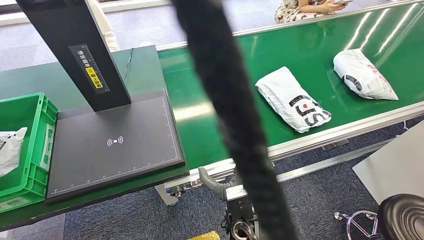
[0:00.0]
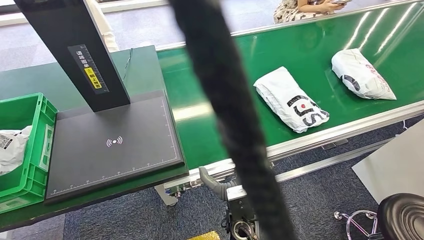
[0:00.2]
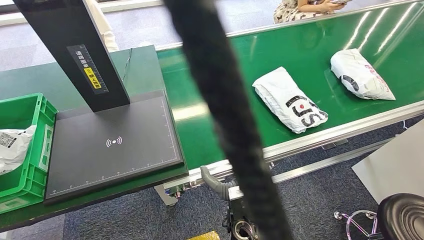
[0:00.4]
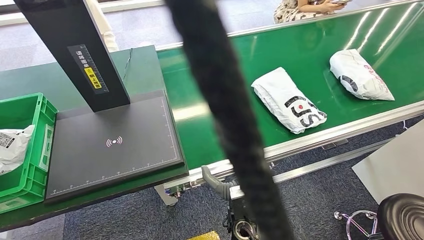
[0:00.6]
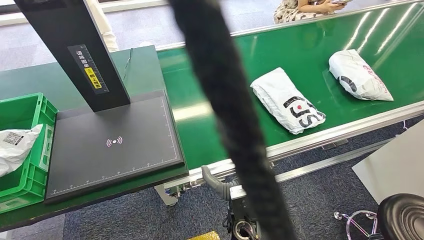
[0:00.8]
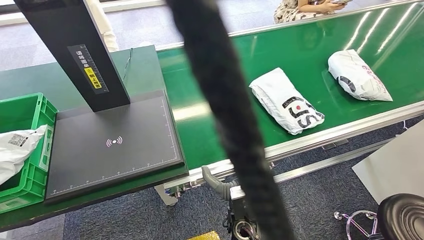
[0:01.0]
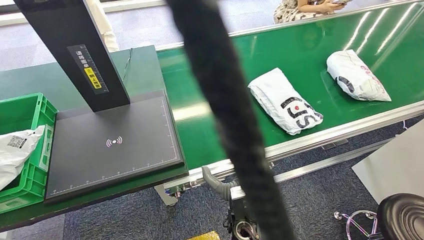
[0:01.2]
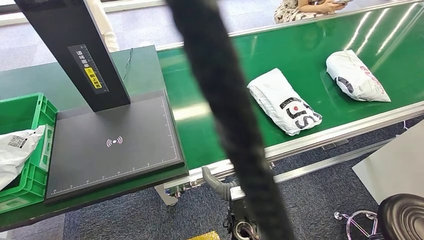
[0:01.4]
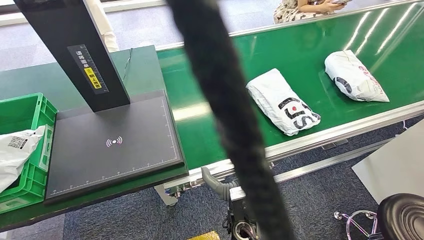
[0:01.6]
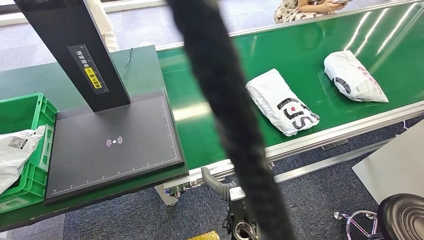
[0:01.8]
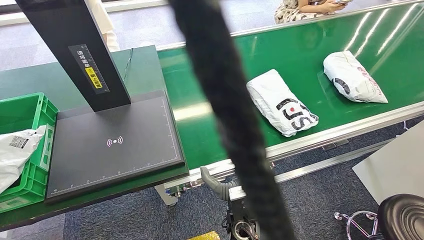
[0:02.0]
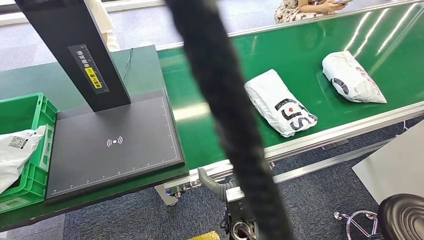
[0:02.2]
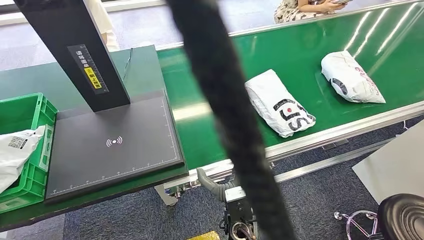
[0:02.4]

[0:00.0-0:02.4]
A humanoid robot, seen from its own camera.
Step, 0:00.0 to 0:02.2: Place the package into the parcel locker.
0:00.0 to 0:01.2: The hands make only small movements.
0:01.2 to 0:02.4: The left hand is displaced to the right and upward by some 20 cm.
